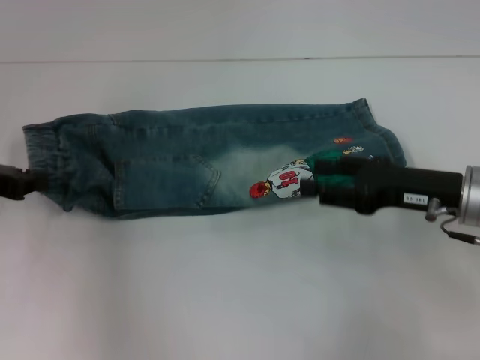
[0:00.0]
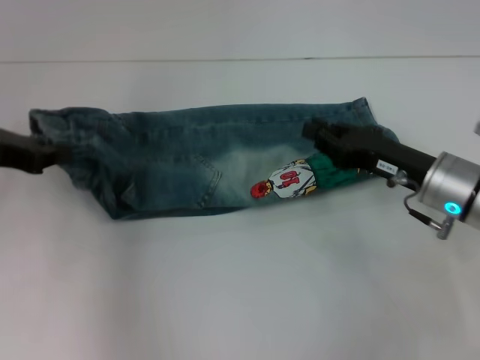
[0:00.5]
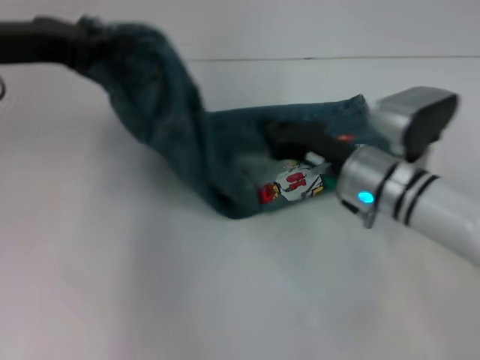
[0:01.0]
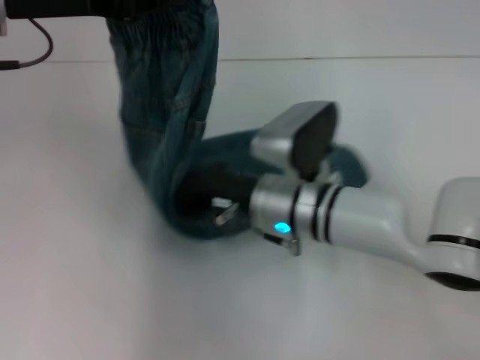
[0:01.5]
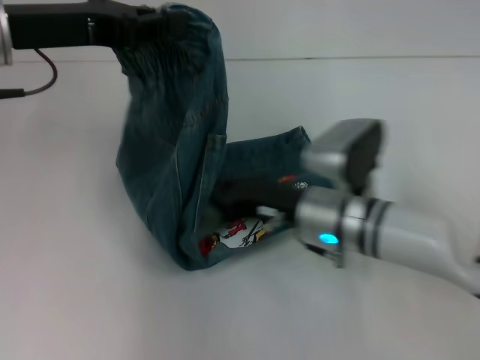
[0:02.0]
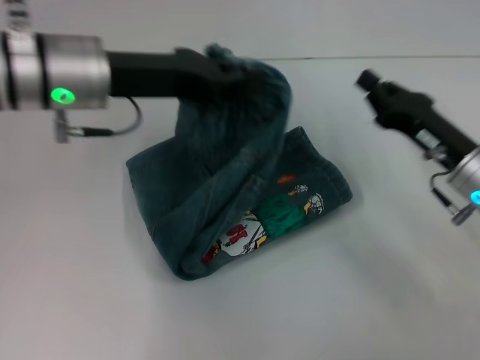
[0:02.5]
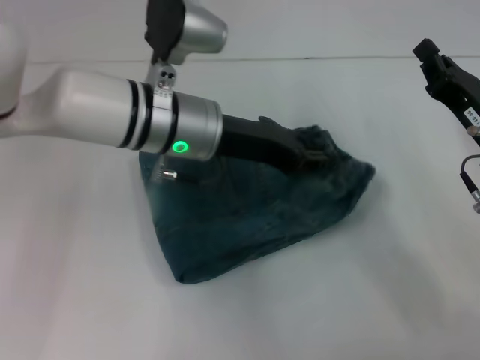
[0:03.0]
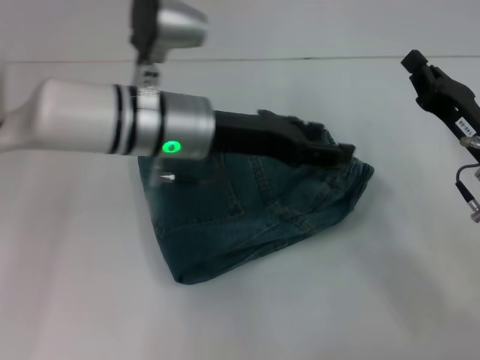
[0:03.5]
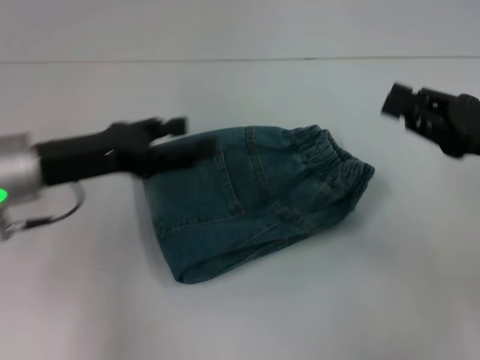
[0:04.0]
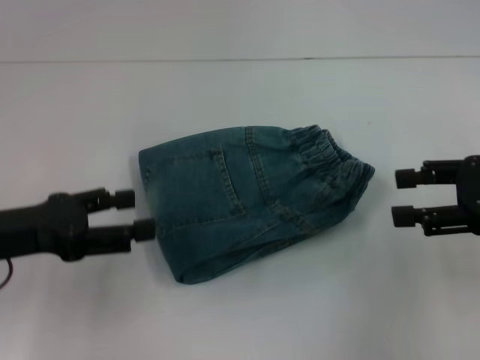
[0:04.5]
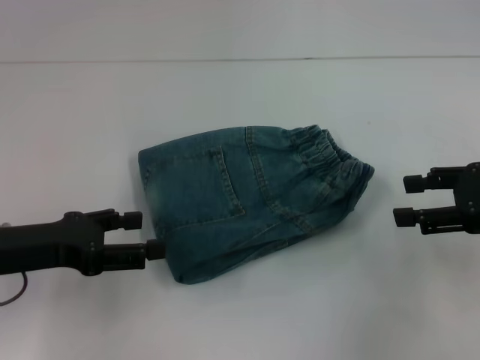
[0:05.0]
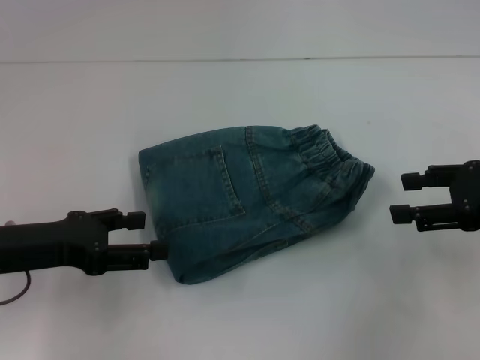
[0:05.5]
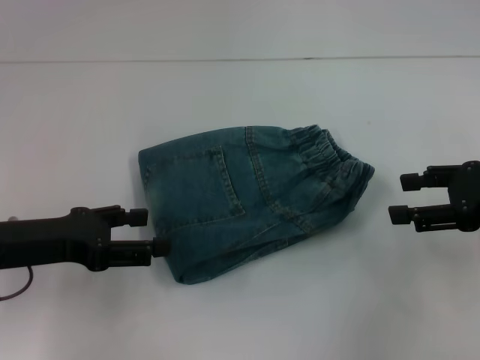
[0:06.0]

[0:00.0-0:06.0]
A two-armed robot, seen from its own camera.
Step, 0:00.0 to 0:01.5: Press the middle of the pants with your right hand.
Step, 0:02.5 to 0:03.0: Fold to the right with your left hand.
0:00.0 to 0:02.0: The left gripper moves upward and to the right, roughly 15 cm. The right gripper is displaced to the left by roughly 15 cm, and closes up.
0:02.0 to 0:04.0: The left gripper is displaced downward and backward by about 10 cm, reaches some 15 cm to the right, then returns, and opens up. Meanwhile the right gripper shifts some 20 cm to the right and upward.
0:04.0 to 0:06.0: The right gripper opens its fingers. The left gripper shifts by about 5 cm.
